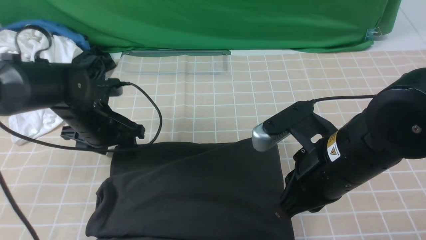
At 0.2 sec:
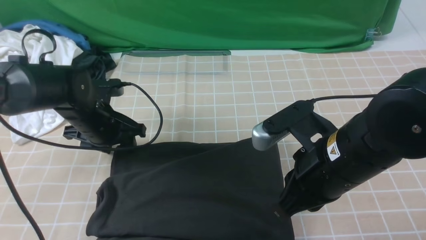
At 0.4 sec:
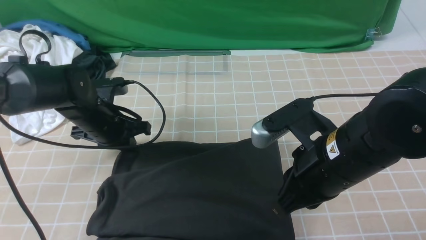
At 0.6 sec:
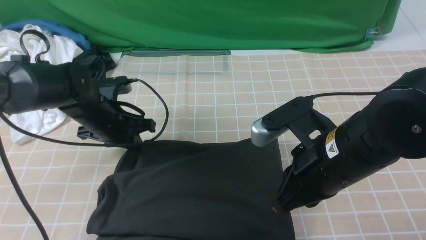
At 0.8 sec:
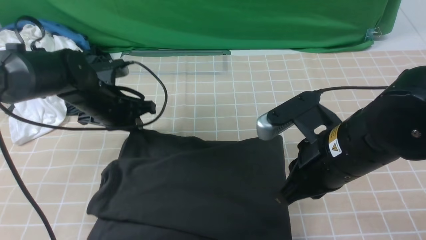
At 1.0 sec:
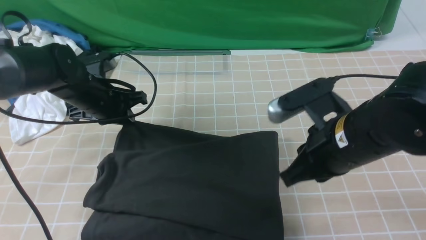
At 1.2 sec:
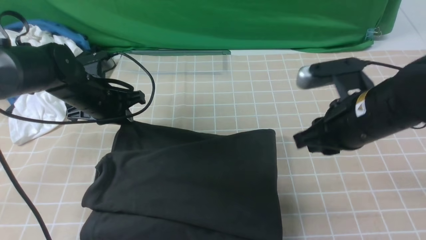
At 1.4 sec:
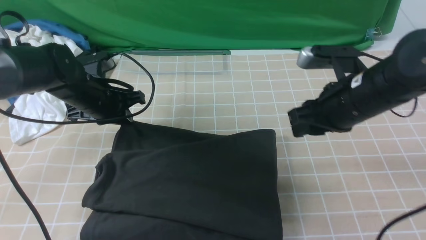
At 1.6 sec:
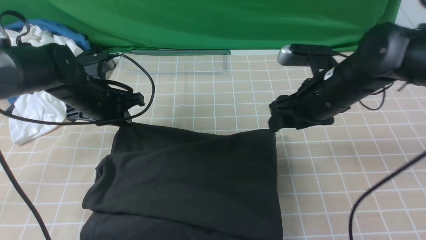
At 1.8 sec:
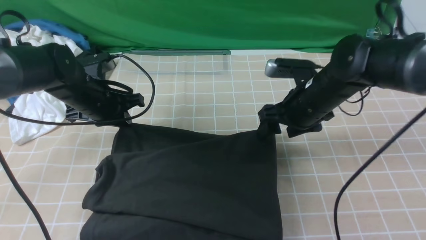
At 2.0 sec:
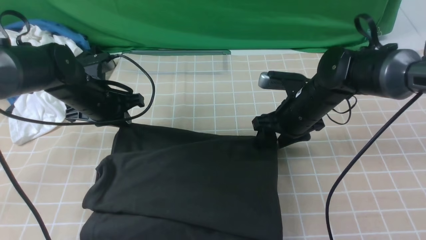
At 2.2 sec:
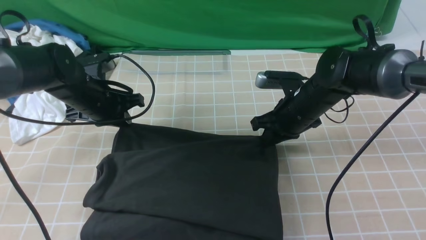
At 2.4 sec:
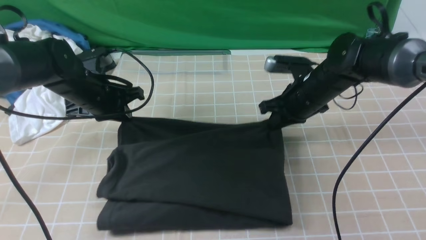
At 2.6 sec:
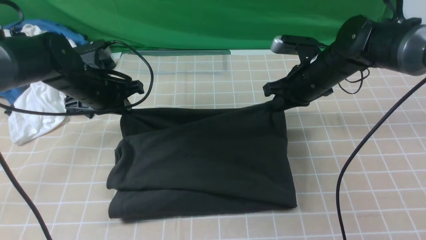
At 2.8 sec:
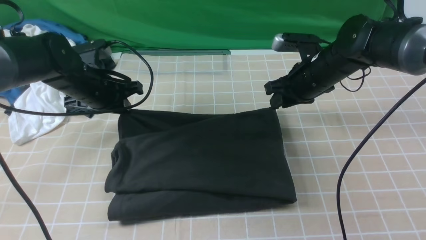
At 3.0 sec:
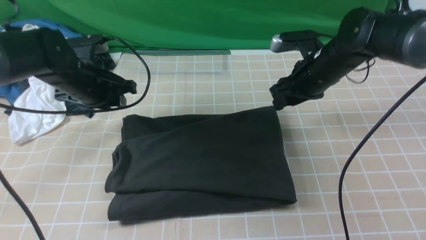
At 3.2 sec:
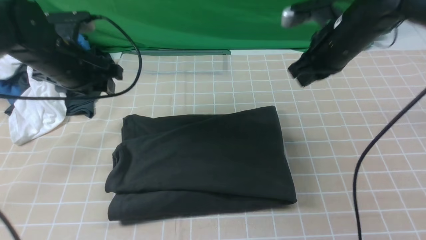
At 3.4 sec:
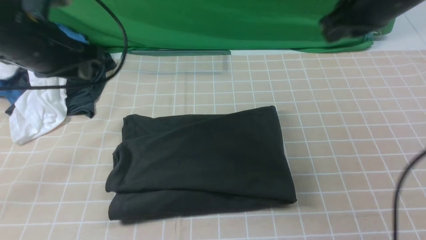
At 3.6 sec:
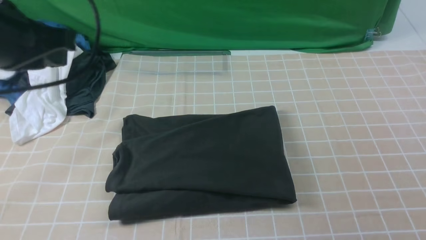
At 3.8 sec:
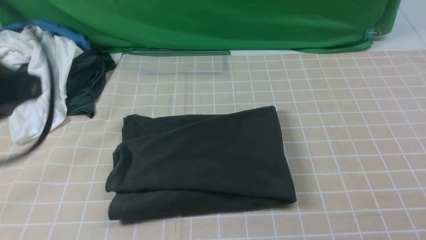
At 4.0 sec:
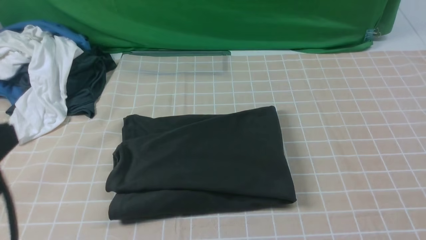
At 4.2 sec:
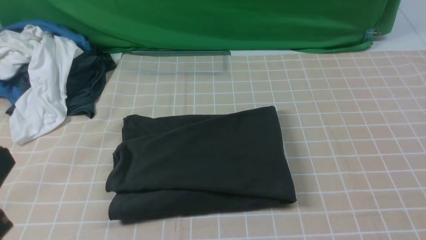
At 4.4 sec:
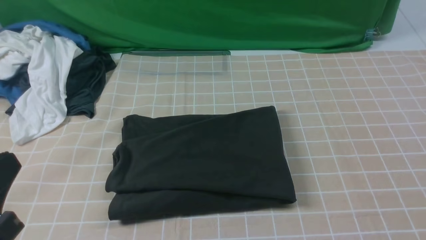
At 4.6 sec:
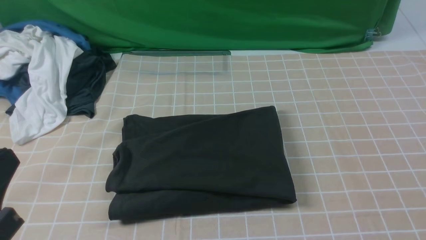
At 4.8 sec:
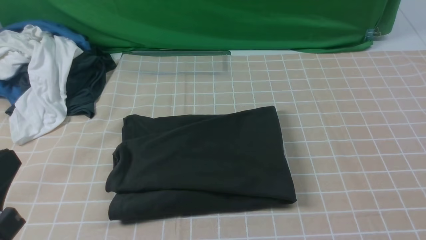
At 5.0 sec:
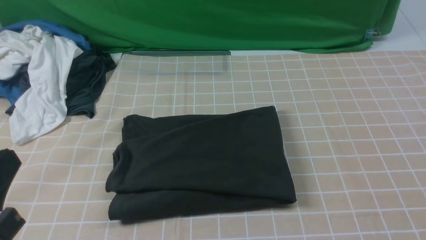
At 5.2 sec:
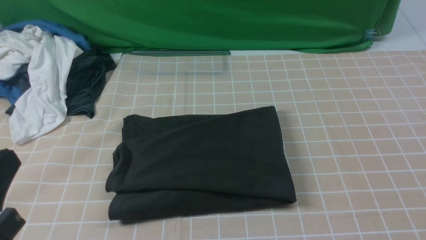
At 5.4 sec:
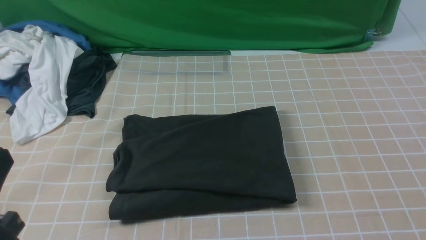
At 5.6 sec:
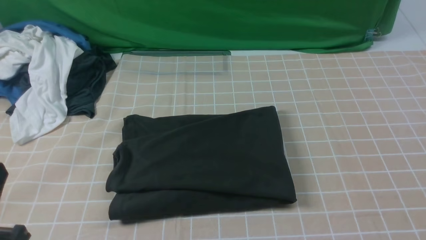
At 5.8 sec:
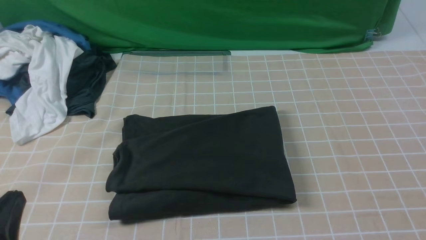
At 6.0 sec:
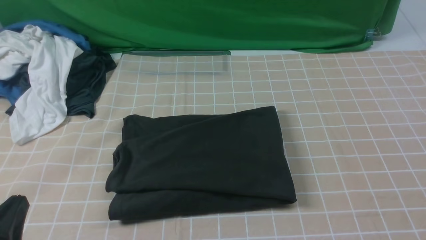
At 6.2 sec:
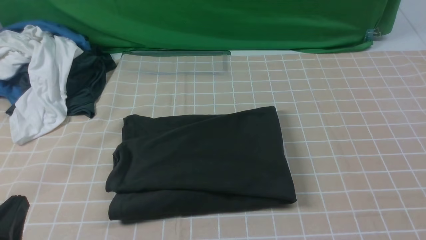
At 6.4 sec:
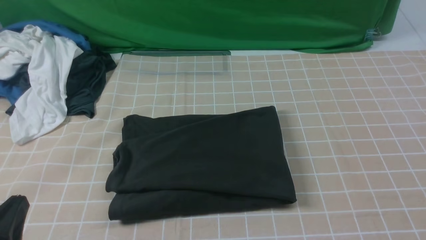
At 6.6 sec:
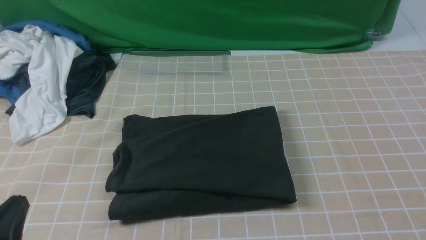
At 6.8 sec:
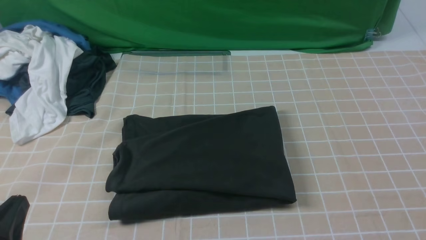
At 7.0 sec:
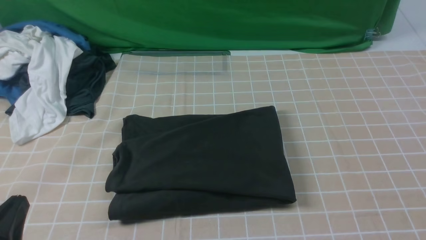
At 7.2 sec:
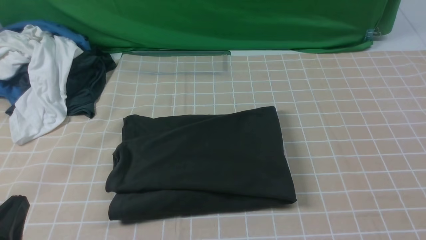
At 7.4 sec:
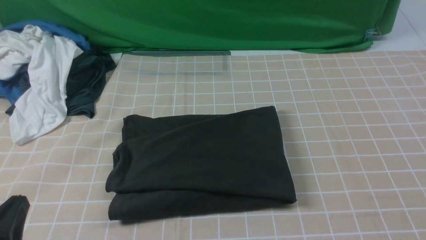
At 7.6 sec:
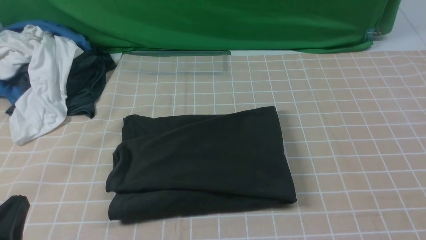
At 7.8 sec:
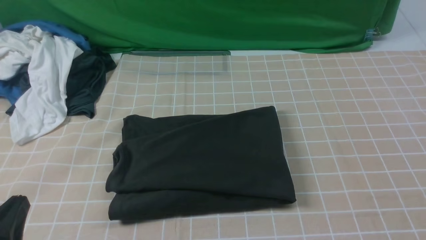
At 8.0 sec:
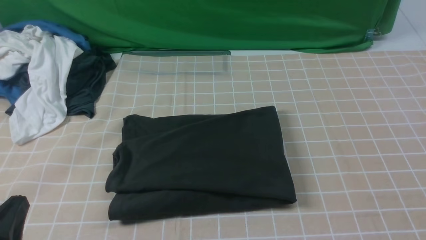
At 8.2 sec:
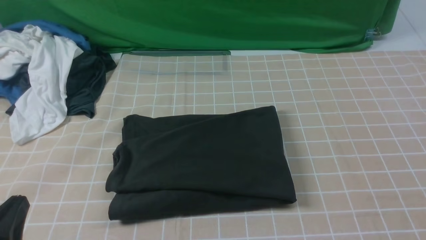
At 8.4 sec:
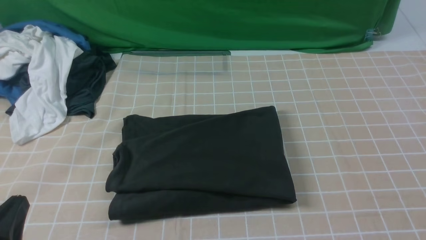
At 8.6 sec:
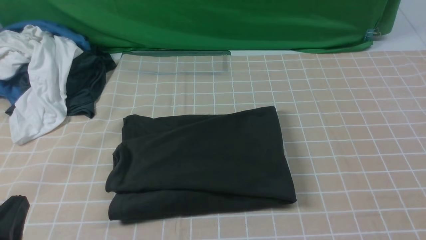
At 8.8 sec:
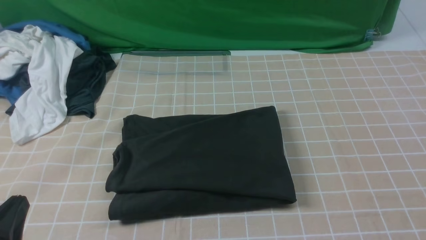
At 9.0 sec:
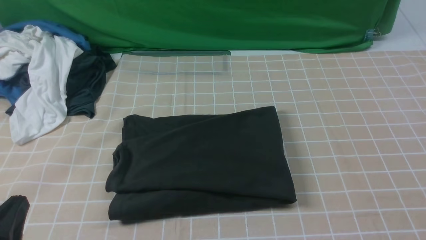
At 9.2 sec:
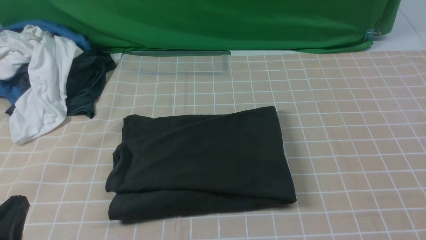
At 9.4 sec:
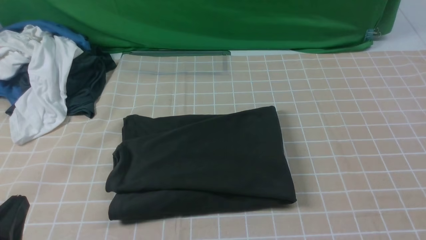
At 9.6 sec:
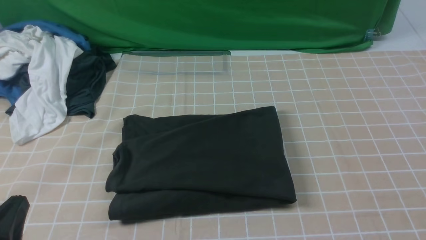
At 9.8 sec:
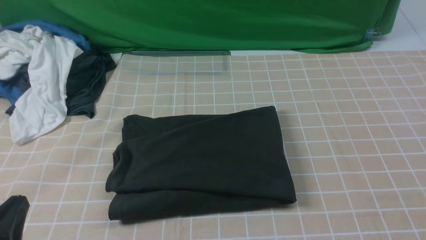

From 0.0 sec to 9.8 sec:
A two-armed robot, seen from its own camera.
From 0.0 sec to 1.4 sec: The right gripper travels forward by roughly 10 cm, and opens its fingers, while the left gripper closes.
From 1.4 sec to 2.8 sec: The right gripper goes roughly 10 cm forward.
From 2.8 sec to 4.2 sec: The left gripper goes some 30 cm backward. The right gripper heads backward and upward, covering about 40 cm, and closes.
From 4.2 sec to 5.6 sec: The left gripper goes about 5 cm downward.
From 5.6 sec to 7.0 sec: The left gripper goes about 5 cm downward.
From 8.4 sec to 9.8 sec: Both grippers stay about where they are.
